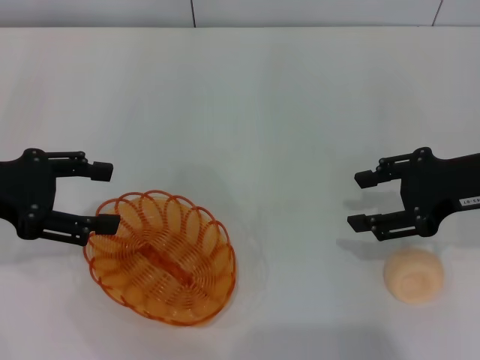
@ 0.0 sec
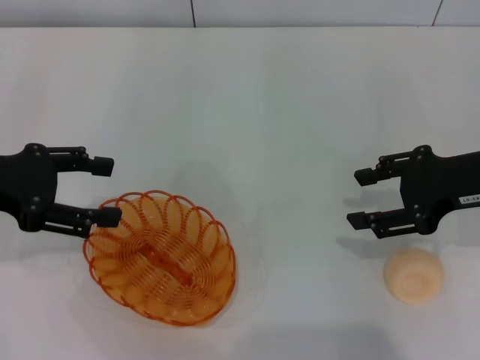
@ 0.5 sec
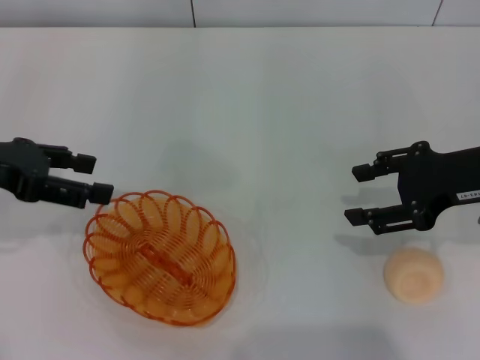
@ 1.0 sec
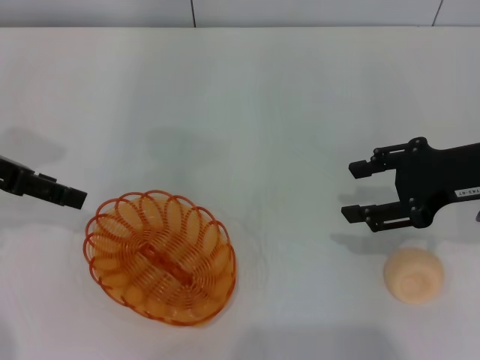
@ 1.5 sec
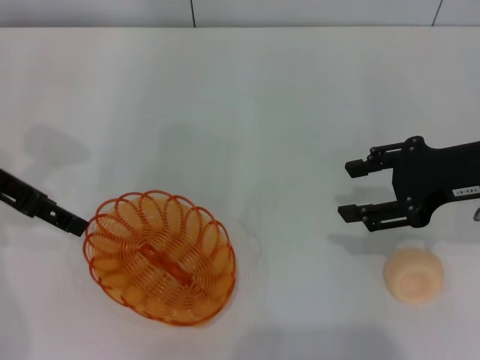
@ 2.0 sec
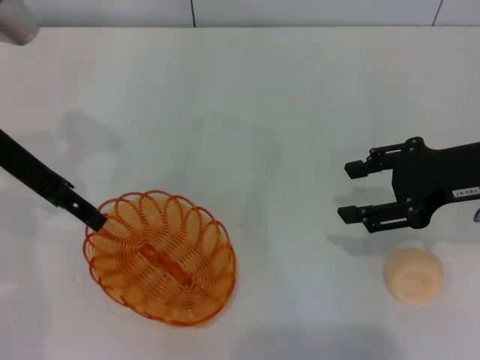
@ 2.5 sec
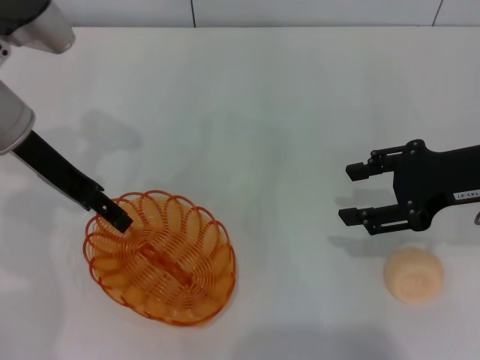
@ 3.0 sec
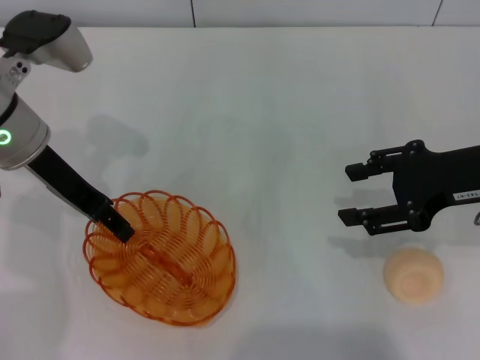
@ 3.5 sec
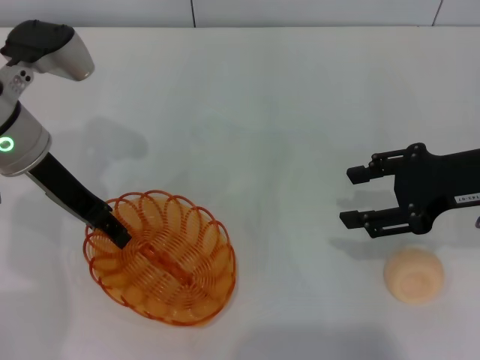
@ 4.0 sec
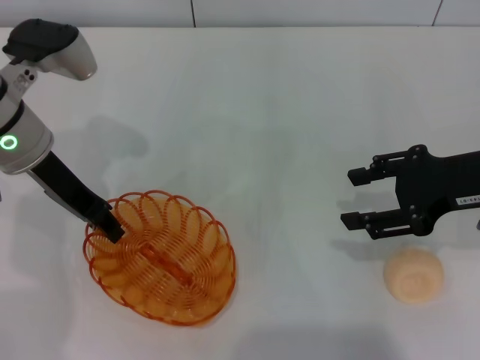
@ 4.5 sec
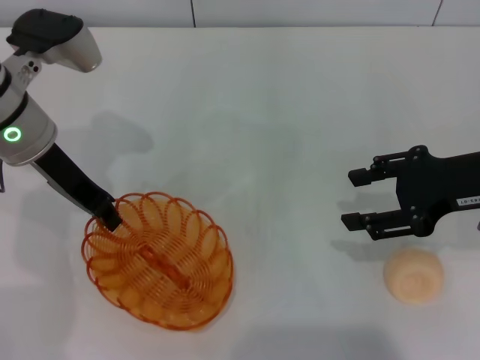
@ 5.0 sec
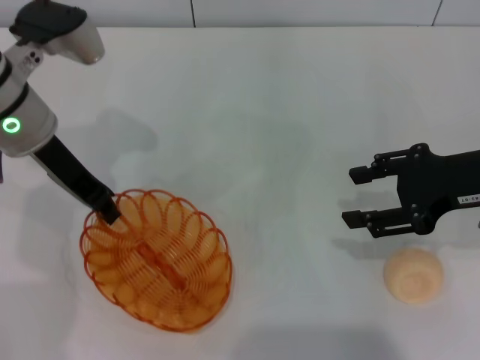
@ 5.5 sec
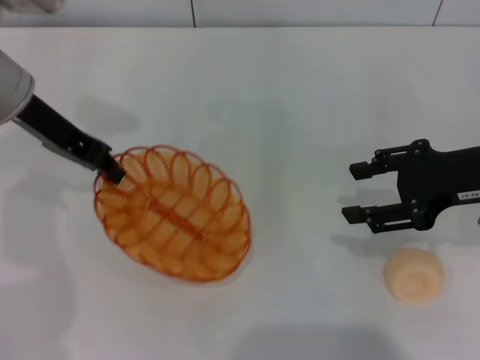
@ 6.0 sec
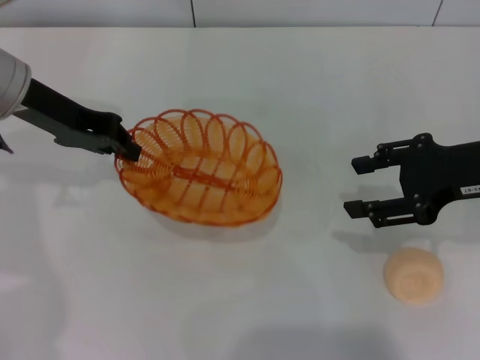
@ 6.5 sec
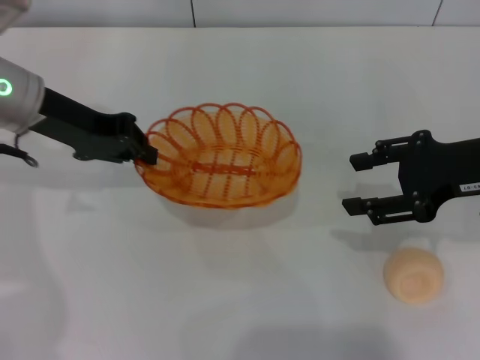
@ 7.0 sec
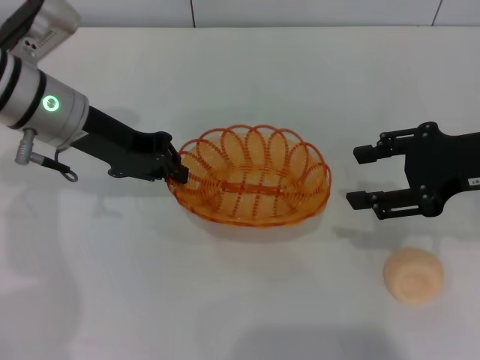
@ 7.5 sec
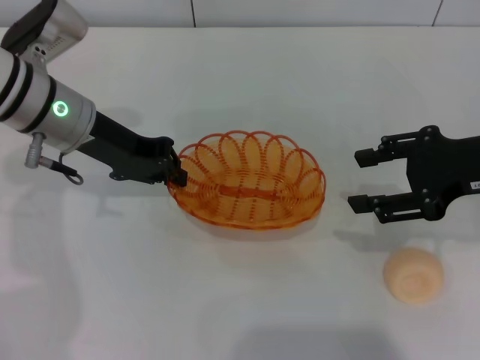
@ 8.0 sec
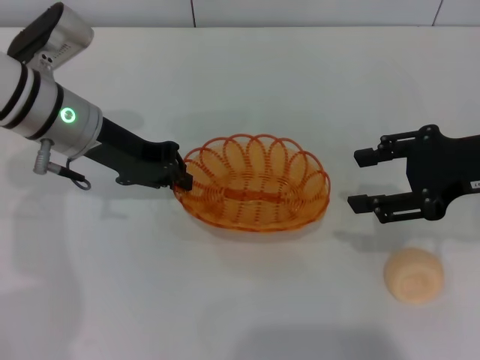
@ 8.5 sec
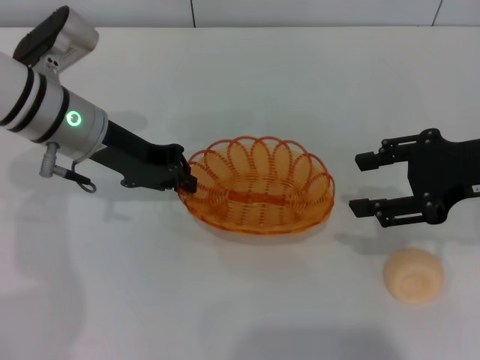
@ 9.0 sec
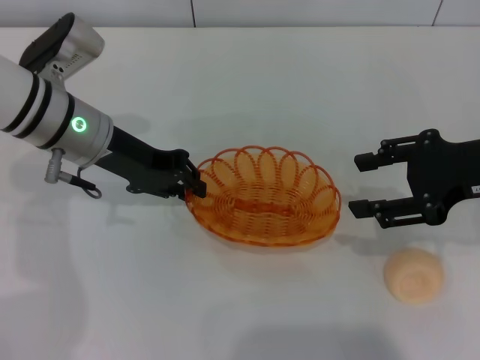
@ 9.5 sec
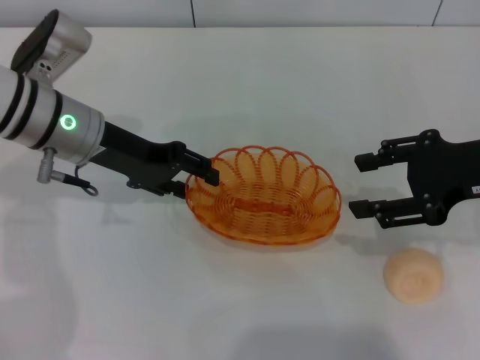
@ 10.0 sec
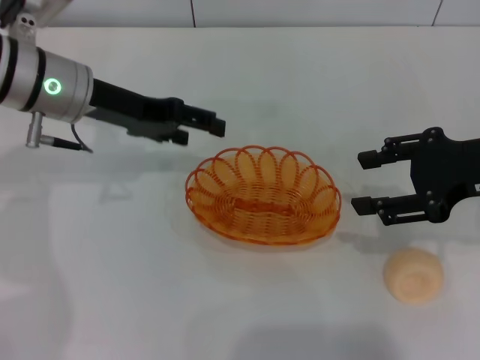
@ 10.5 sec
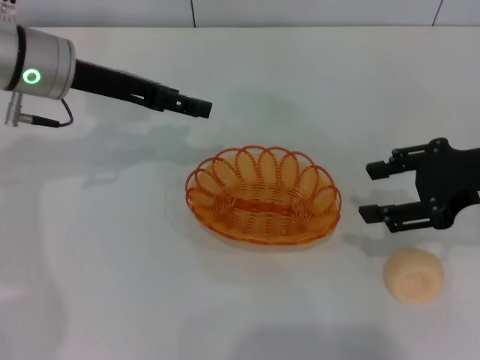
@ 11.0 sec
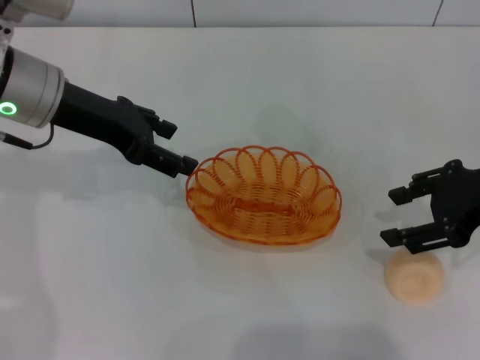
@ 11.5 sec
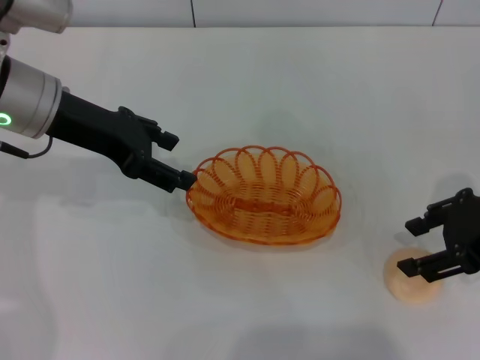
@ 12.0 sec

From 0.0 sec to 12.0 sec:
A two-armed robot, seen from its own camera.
Step, from 0.0 sec to 6.0 sec: Pick up the basket with the left gripper.
Step, from 6.5 sec to 11.0 sec: Place the basket in the center of view with the left gripper.
From 0.0 sec to 2.0 sec: The left gripper heads forward, covering approximately 5 cm.
From 2.0 sec to 4.0 sec: The left gripper travels to the right by roughly 5 cm, and closes its fingers.
From 4.0 sec to 6.0 sec: The left gripper closes up.
From 6.0 sec to 8.0 sec: The left gripper moves downward, some 5 cm.
From 8.0 sec to 10.0 sec: The left gripper opens its fingers.
From 10.0 sec to 12.0 sec: The left gripper travels upward by some 5 cm, and opens.

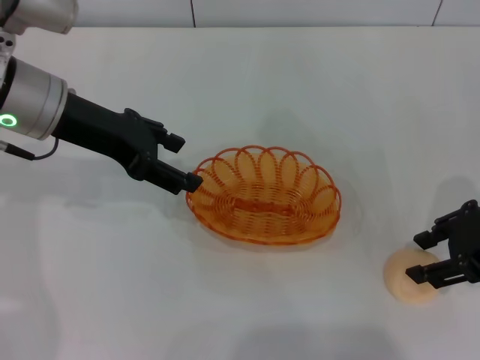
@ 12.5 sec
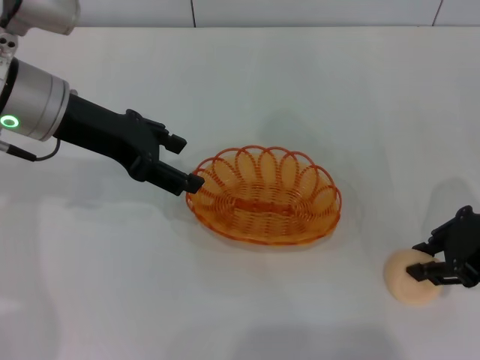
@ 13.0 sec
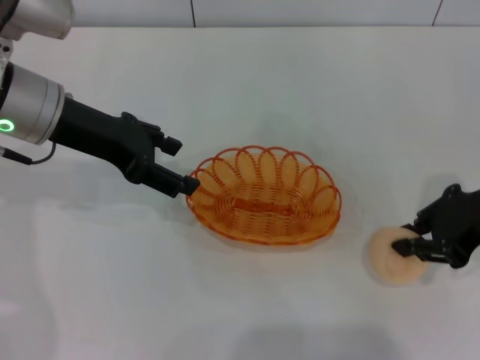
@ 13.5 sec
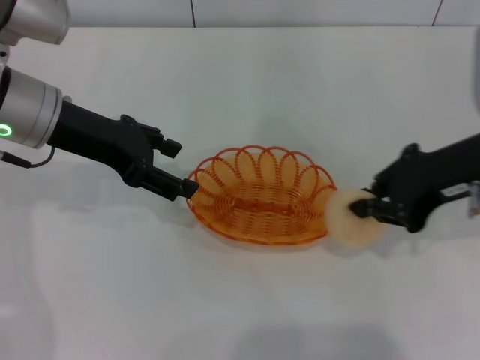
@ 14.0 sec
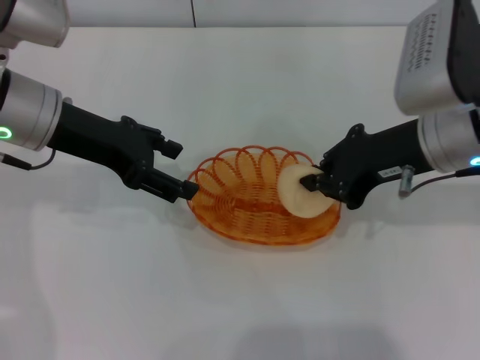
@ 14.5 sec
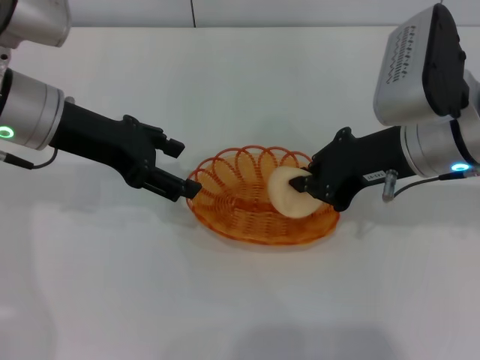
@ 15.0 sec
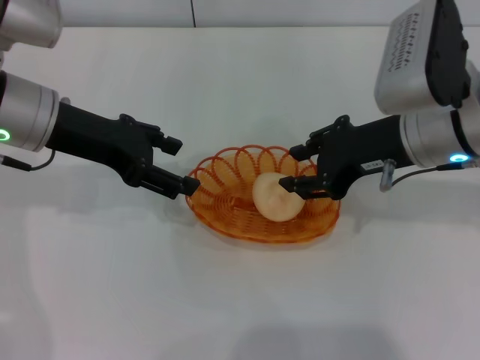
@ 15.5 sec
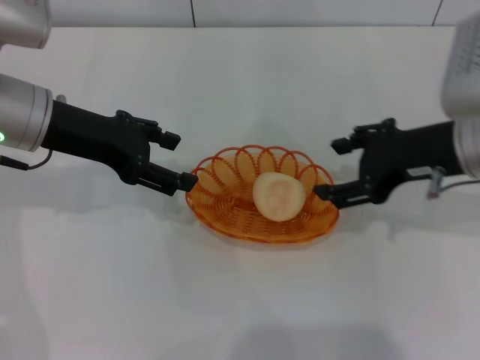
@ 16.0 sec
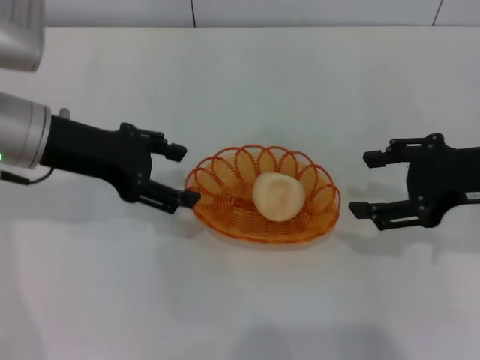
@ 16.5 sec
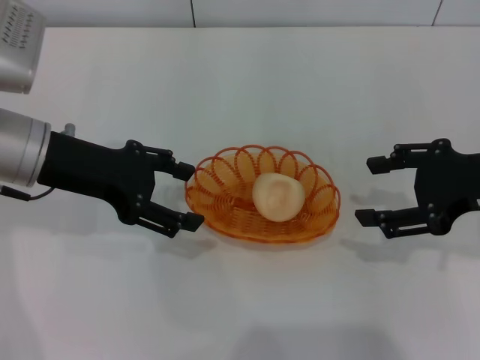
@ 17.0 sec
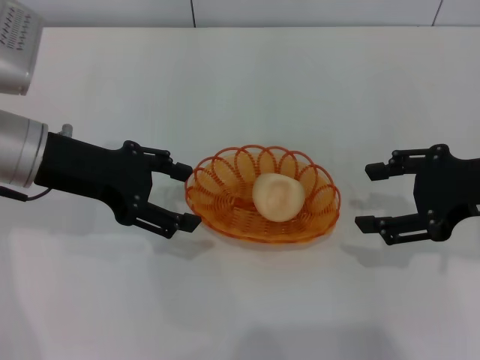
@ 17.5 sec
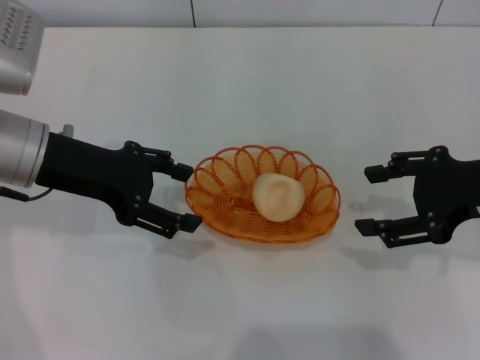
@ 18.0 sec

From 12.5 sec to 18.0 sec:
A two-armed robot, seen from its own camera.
Step, from 14.0 sec to 15.5 sec: Place the egg yolk pastry into the basket with the right gripper.
From 12.5 sec to 14.5 sec: The right gripper is displaced to the left by approximately 10 cm, and closes.
From 14.5 sec to 16.0 sec: The right gripper opens.
From 16.0 sec to 18.0 sec: The right gripper travels to the right by roughly 5 cm.
